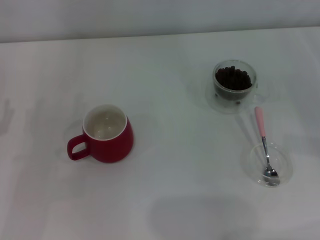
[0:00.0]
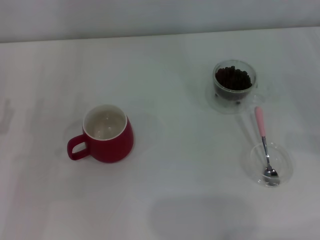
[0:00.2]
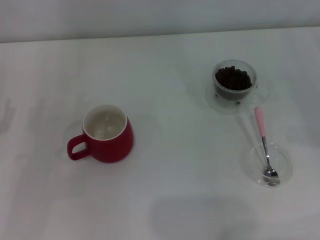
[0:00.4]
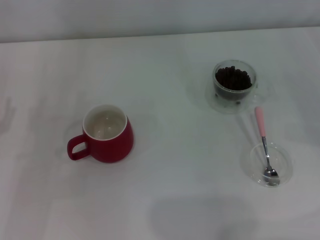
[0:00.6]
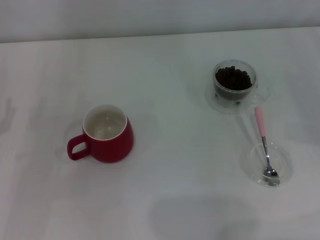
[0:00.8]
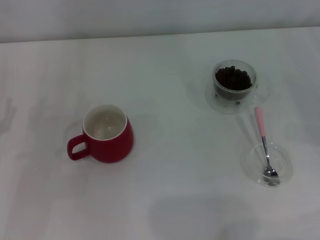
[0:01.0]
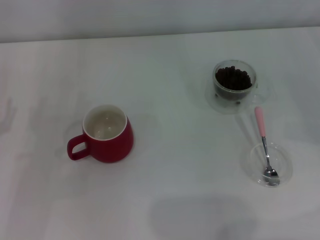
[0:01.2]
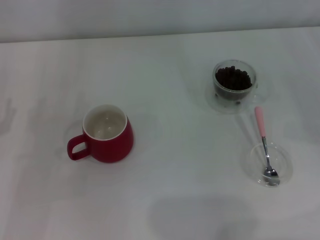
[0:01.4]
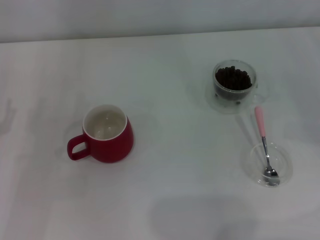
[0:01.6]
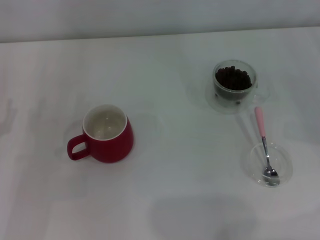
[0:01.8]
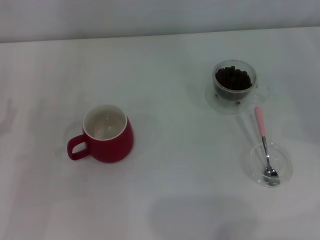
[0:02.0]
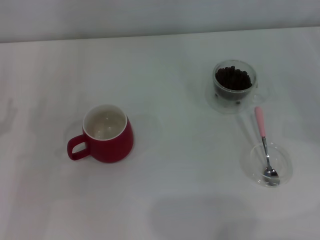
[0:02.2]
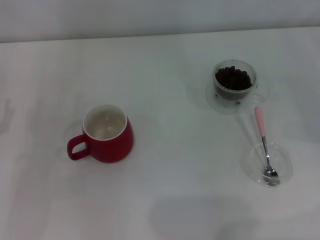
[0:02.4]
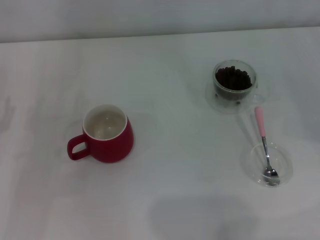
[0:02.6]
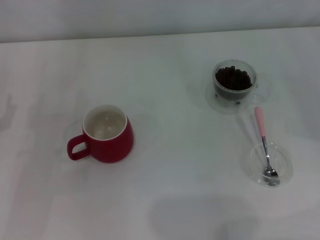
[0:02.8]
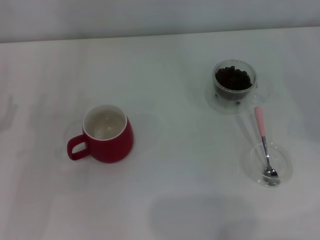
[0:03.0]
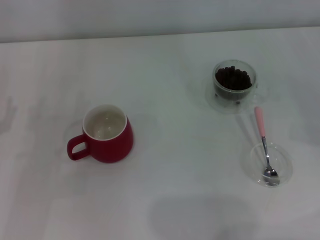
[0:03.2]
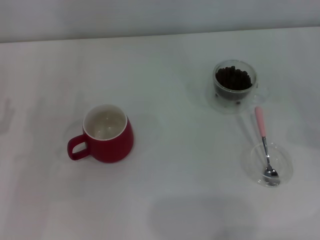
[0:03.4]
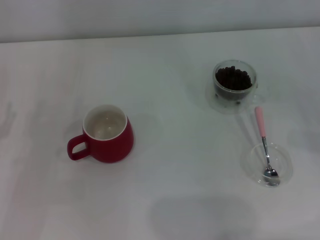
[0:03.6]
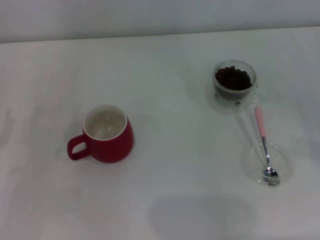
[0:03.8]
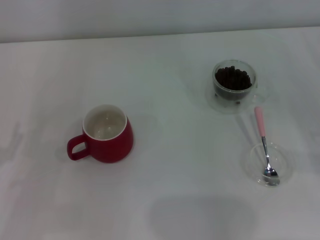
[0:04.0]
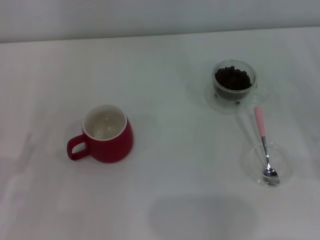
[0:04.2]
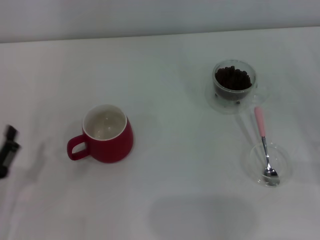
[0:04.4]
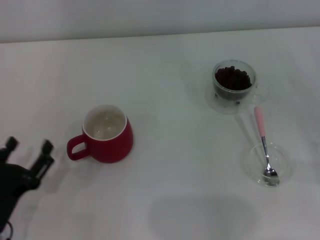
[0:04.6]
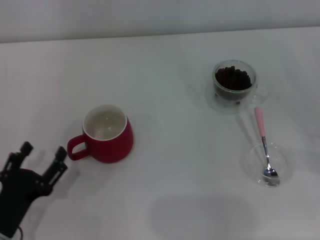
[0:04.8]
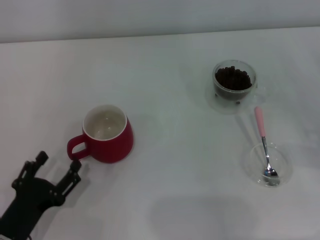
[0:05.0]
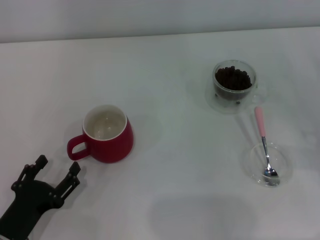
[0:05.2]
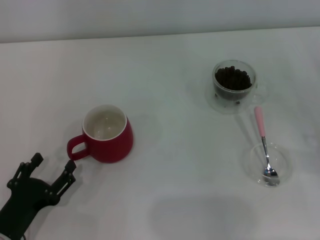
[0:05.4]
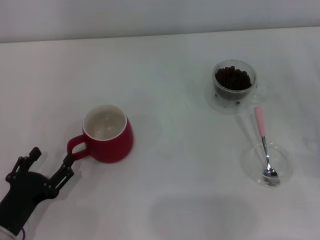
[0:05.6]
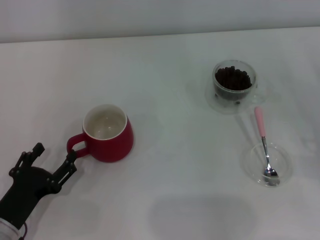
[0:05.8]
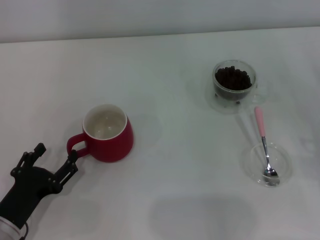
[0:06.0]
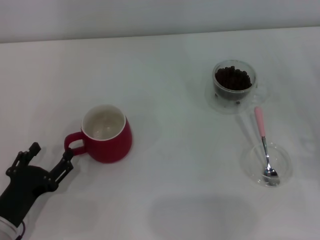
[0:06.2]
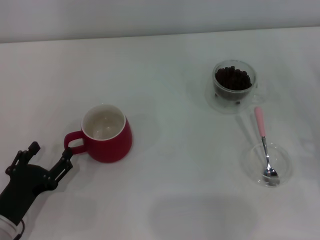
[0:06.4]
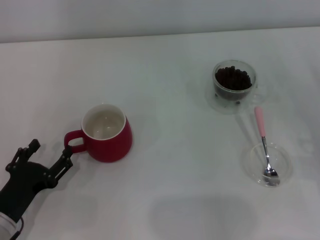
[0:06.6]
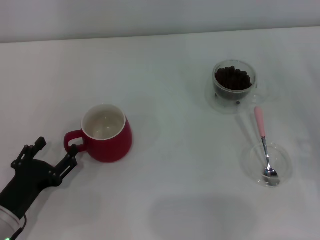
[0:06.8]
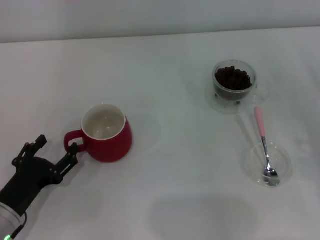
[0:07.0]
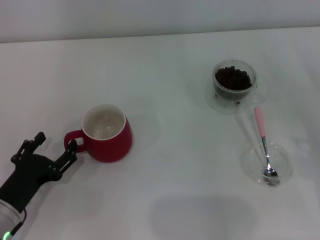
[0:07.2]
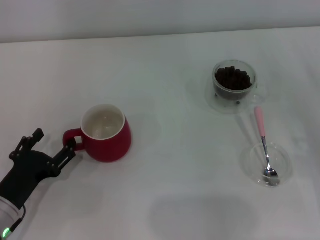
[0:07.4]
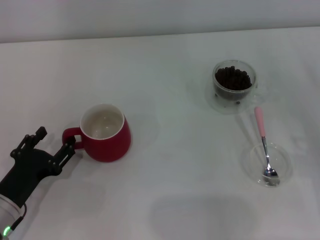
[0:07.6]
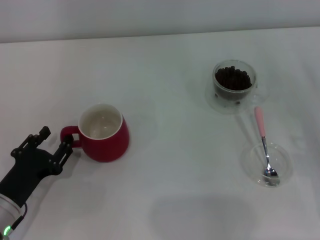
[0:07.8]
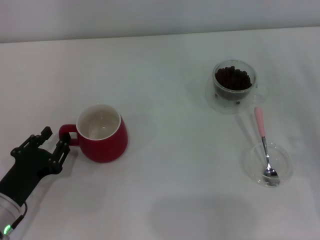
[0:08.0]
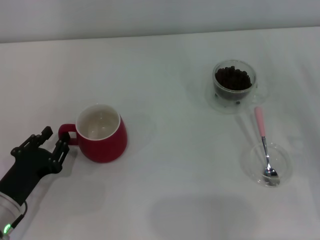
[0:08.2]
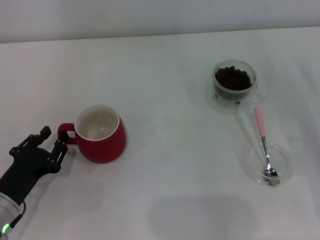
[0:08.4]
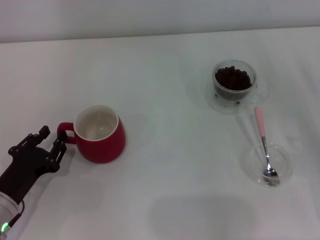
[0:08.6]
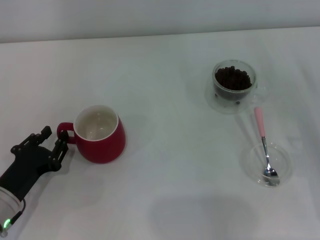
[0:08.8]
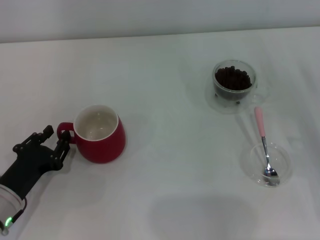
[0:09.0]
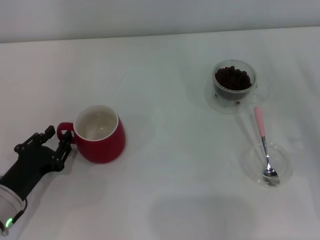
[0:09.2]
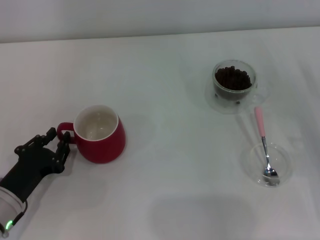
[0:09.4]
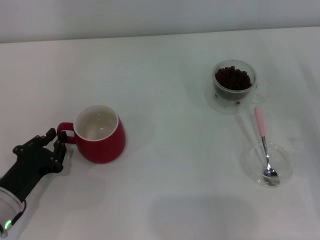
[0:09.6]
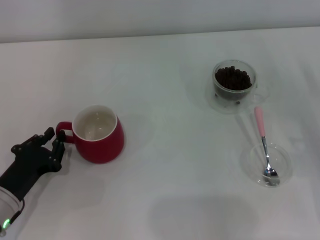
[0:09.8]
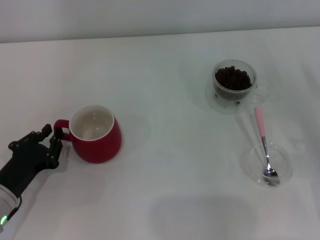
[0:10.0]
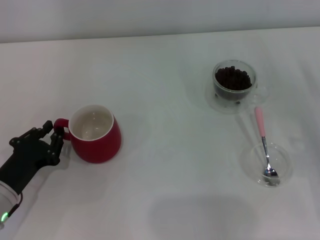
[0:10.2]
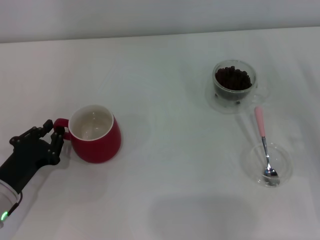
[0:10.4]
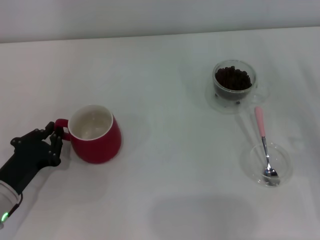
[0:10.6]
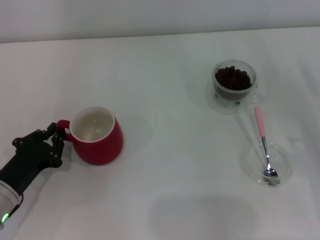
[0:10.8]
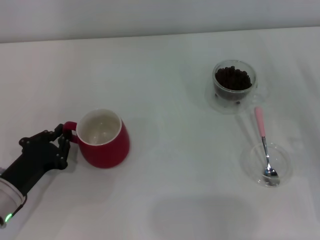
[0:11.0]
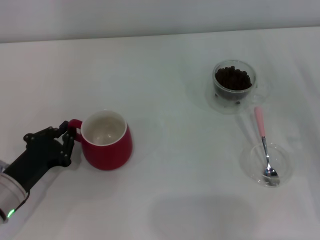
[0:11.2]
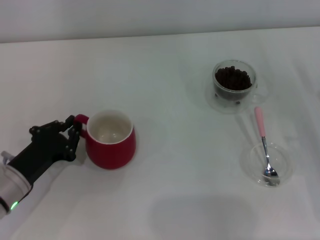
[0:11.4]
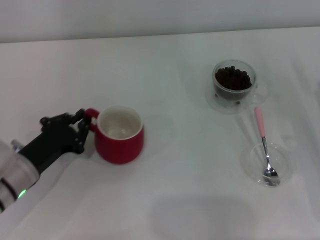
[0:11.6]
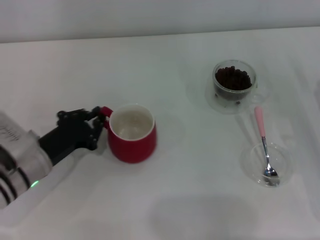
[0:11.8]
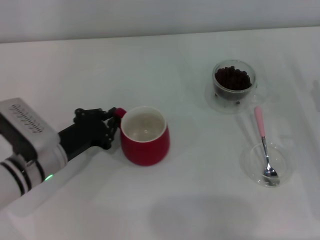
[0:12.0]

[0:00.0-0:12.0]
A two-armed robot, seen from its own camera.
Task of the whole recording: Use a pink spoon to take out the coffee beans from the glass and pour them into the red cup.
0:01.6 to 0:03.0: Both grippers stay about where they are.
0:03.0 to 0:04.4: The left gripper moves backward, about 10 cm.
0:04.4 to 0:06.0: The grippers move only a little.
0:06.0 to 0:07.6: The grippers move only a little.
0:07.6 to 0:09.0: The left gripper closes.
0:09.0 to 0:10.4: Both grippers stay put.
0:10.4 to 0:12.0: The left gripper heads to the right and forward, covering roughly 10 cm.

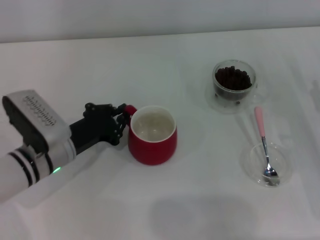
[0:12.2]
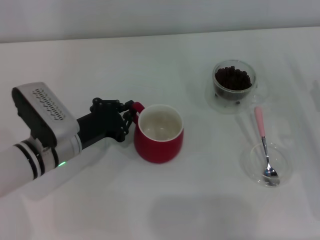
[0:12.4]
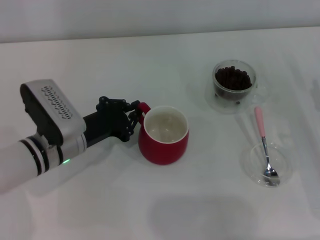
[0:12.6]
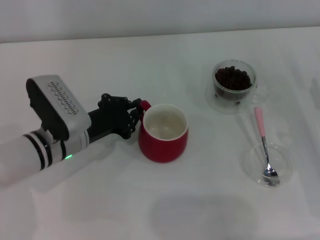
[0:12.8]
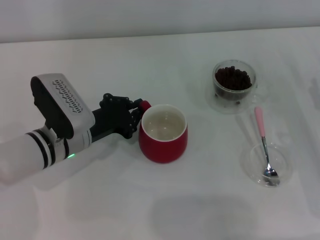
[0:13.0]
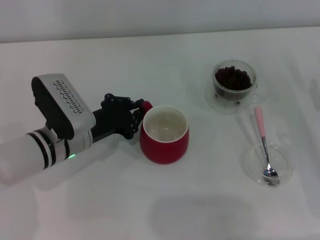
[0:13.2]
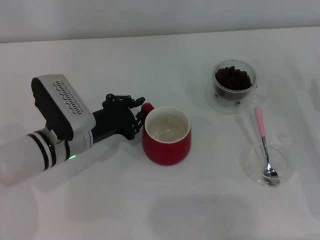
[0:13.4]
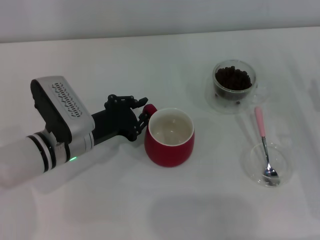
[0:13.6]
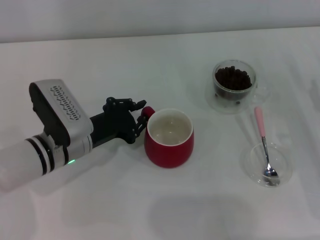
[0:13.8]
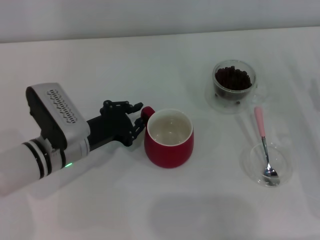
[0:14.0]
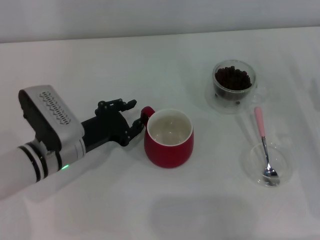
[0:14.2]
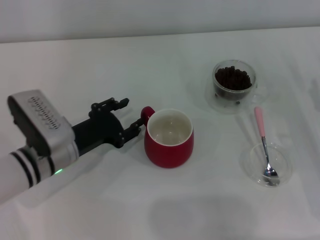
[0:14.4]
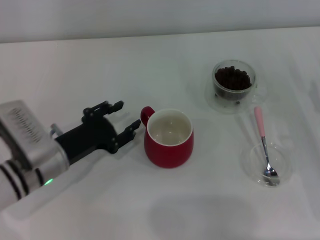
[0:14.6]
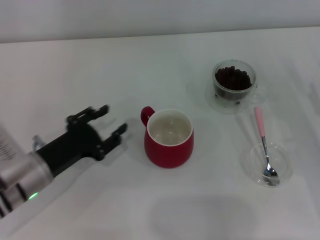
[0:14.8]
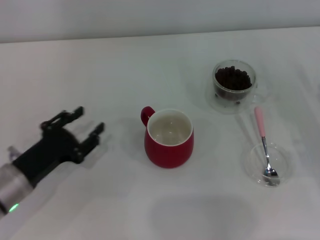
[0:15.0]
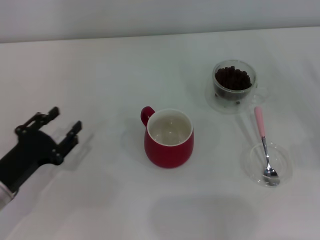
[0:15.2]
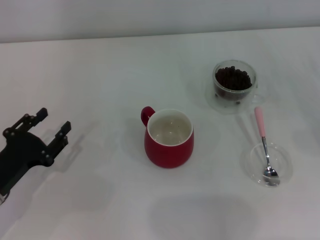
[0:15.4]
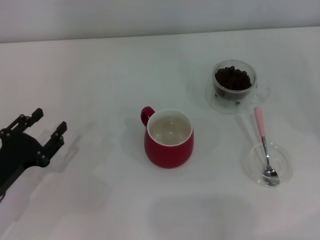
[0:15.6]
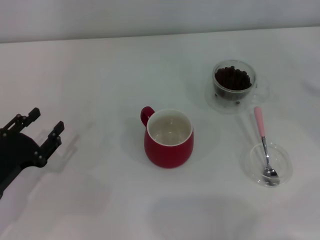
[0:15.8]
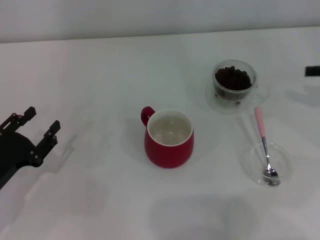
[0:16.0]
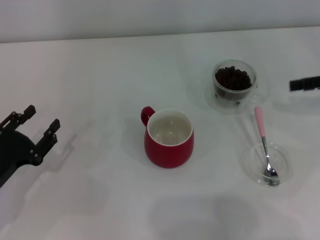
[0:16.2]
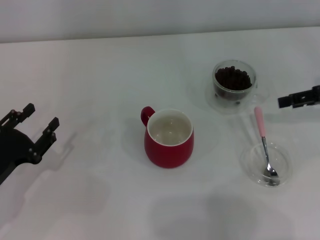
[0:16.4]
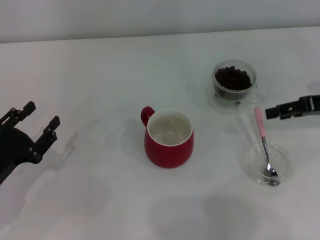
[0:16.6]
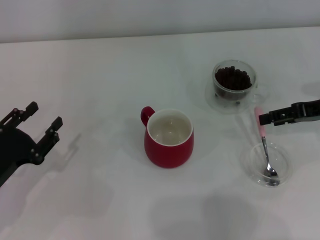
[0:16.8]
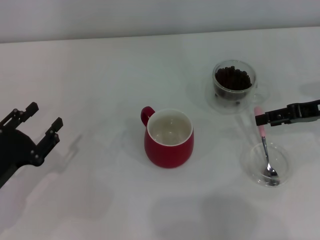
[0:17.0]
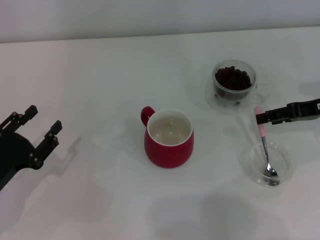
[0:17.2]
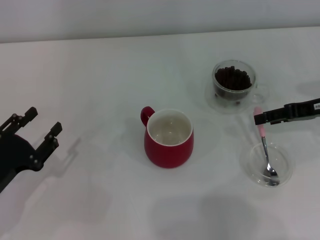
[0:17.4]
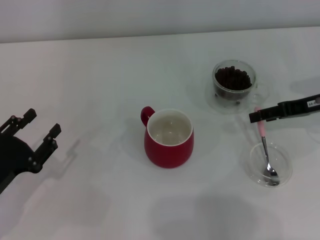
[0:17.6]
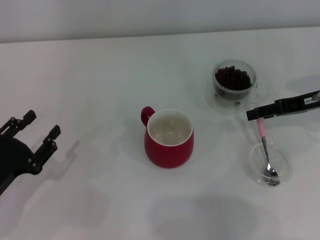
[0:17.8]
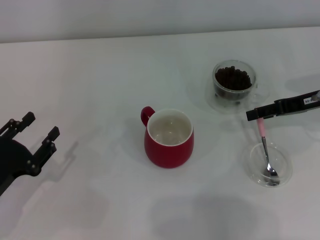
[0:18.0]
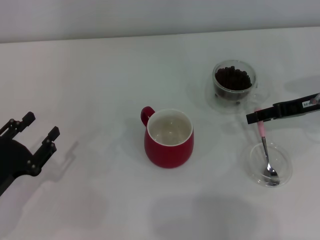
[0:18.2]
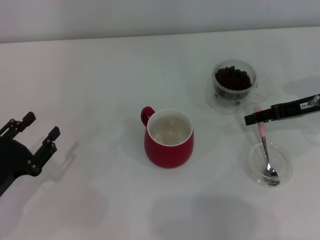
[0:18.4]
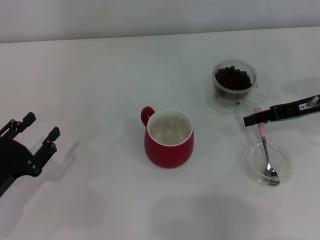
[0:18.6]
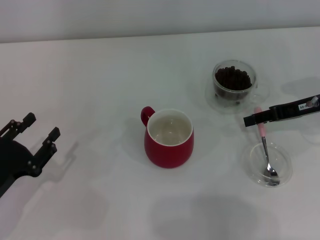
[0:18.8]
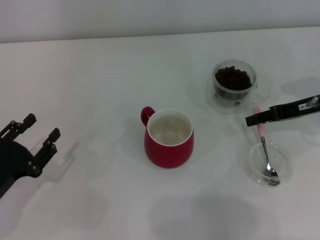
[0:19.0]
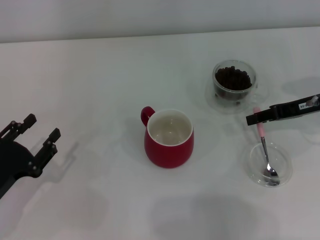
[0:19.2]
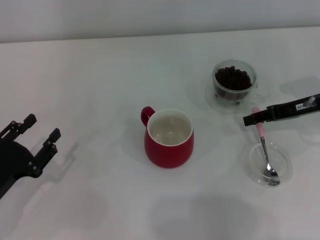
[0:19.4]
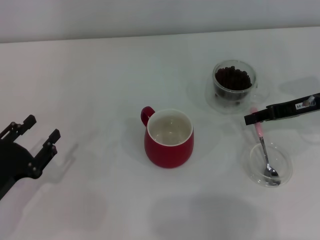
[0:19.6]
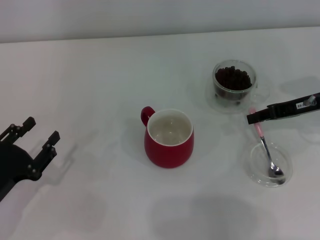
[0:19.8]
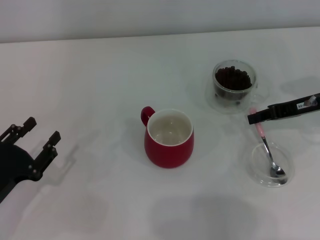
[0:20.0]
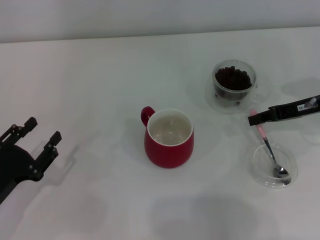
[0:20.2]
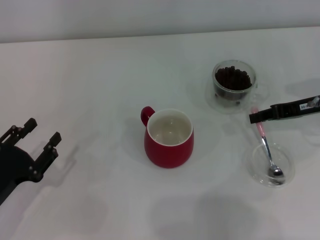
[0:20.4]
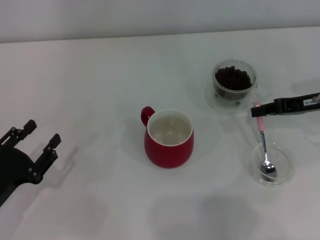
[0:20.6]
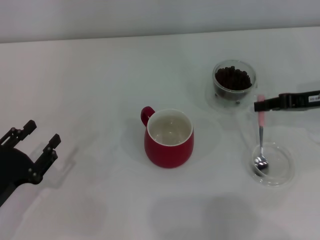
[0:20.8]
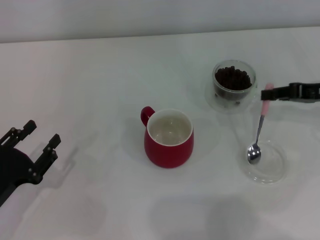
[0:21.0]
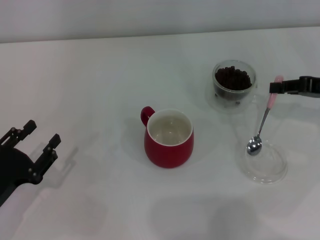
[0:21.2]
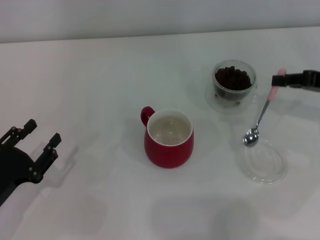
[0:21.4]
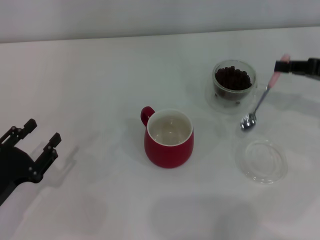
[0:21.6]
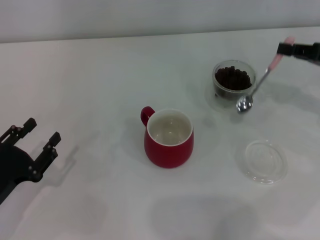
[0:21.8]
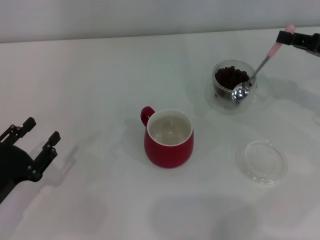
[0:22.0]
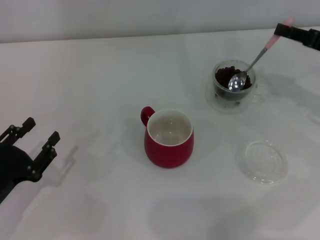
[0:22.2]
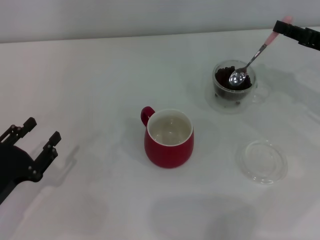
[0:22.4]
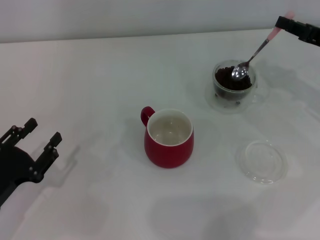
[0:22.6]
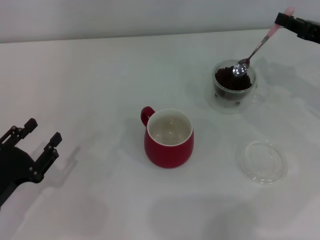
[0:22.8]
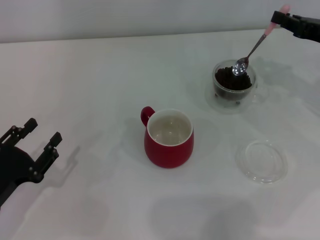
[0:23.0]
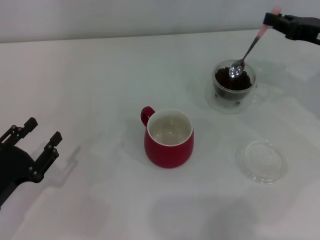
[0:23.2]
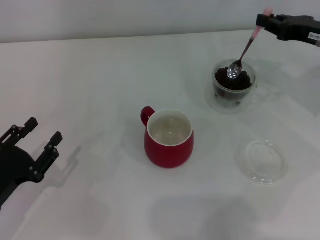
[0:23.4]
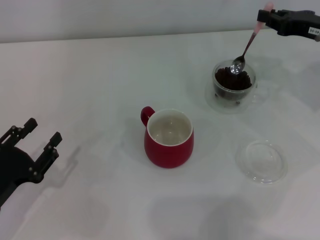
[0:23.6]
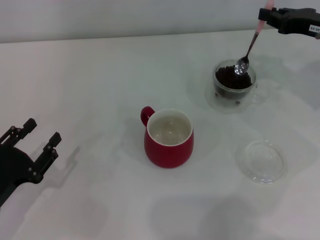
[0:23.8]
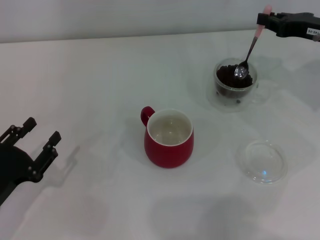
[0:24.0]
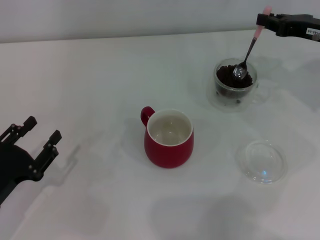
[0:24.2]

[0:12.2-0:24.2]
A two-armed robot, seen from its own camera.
Task of the whole recording: Use a pink spoon to take out the coffee beans from the glass and pour them into the red cup.
Step, 0:12.2 to 0:14.6: Move the cup to the center of view with the left gripper.
Step, 0:14.8 to 0:21.2: Pick up the spoon with the right gripper.
0:12.2 to 0:13.8: The grippers move only a little.
0:13.8 to 0:15.2: The right gripper travels to the right by some 5 cm. Meanwhile the left gripper is displaced to the left and backward by some 15 cm, and opens.
0:15.2 to 0:16.6: The right gripper travels forward and upward by about 10 cm.
0:16.6 to 0:18.2: The grippers move only a little.
0:18.2 to 0:19.8: The right gripper closes.
0:19.8 to 0:21.2: The right gripper ends up approximately 5 cm from where it was.
0:22.6 to 0:24.2: The grippers make only small movements.
